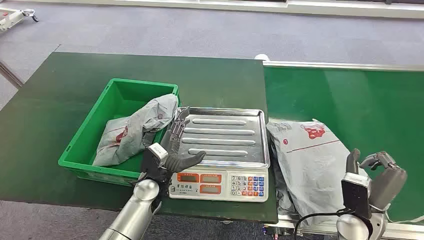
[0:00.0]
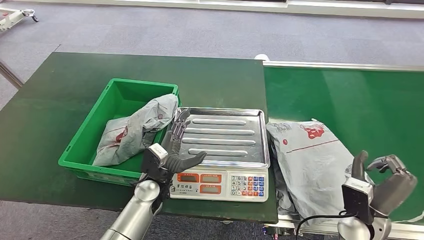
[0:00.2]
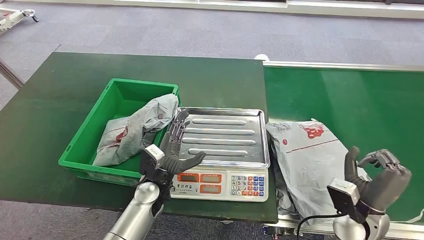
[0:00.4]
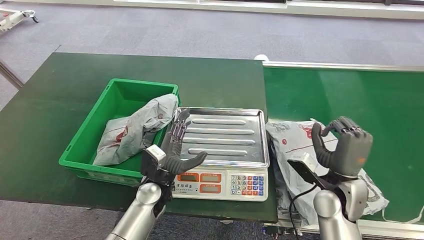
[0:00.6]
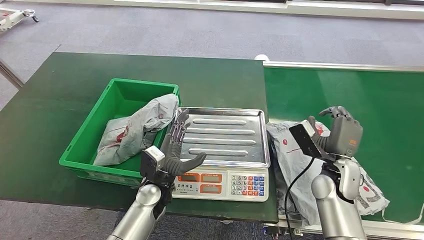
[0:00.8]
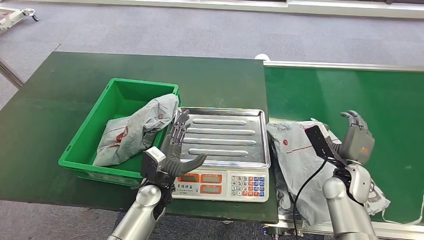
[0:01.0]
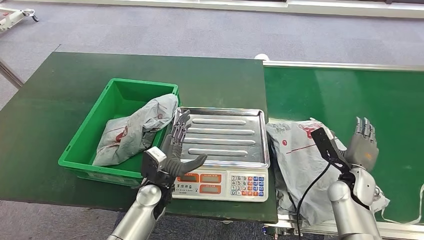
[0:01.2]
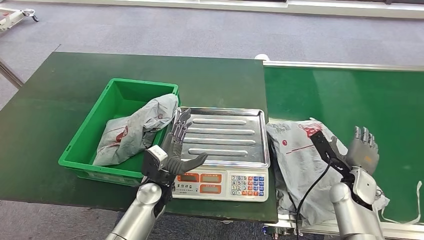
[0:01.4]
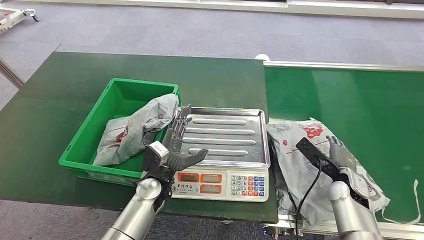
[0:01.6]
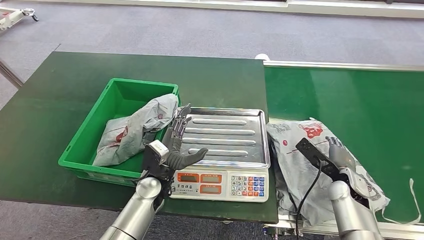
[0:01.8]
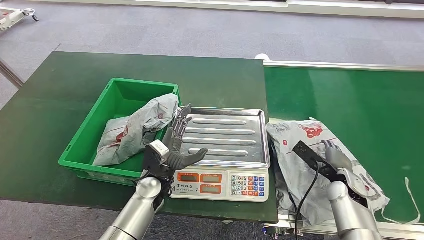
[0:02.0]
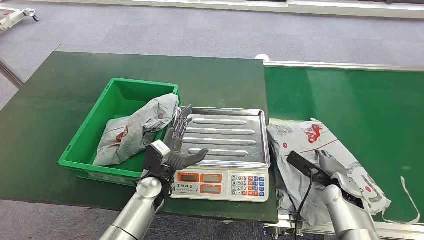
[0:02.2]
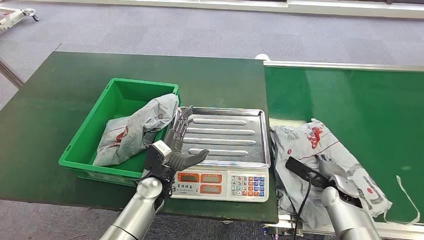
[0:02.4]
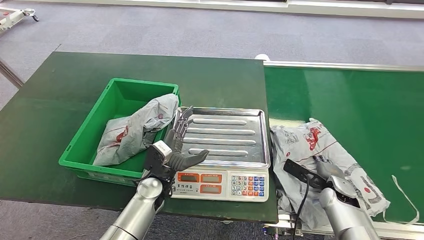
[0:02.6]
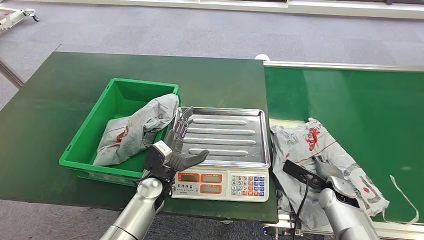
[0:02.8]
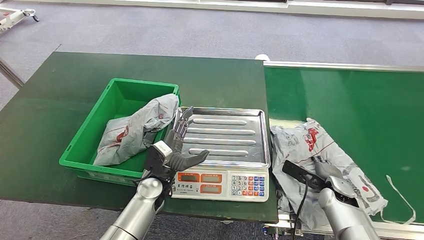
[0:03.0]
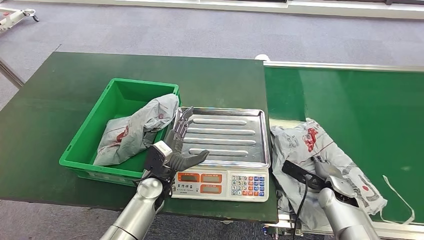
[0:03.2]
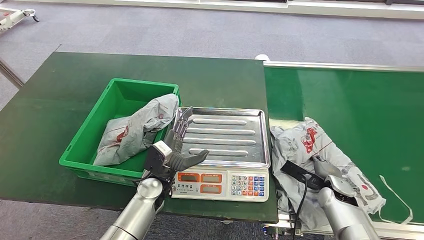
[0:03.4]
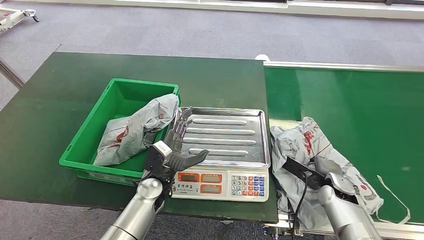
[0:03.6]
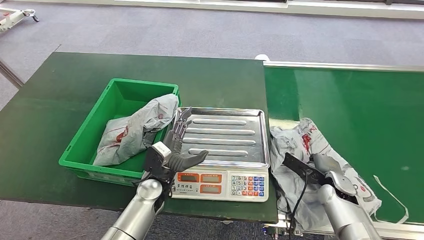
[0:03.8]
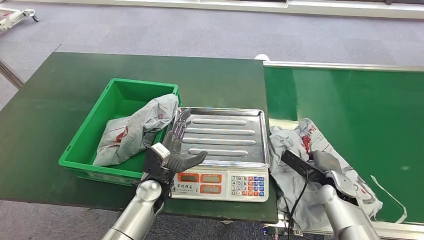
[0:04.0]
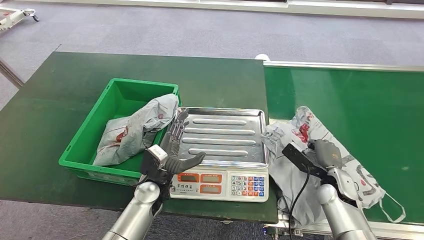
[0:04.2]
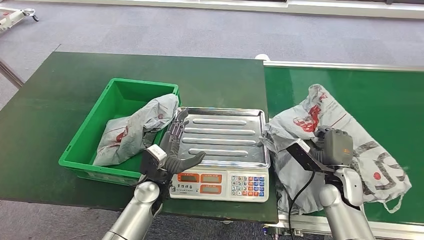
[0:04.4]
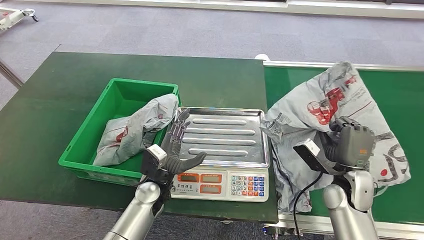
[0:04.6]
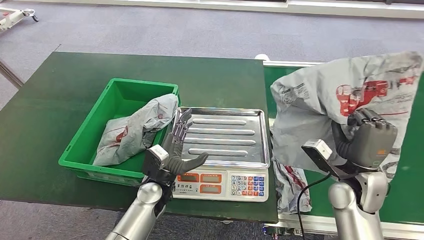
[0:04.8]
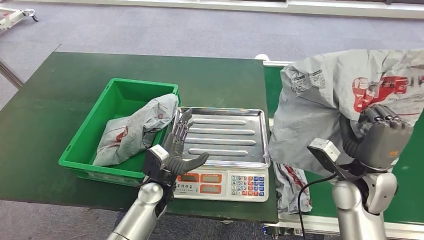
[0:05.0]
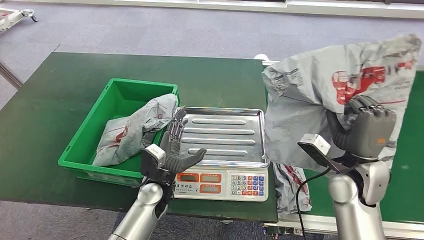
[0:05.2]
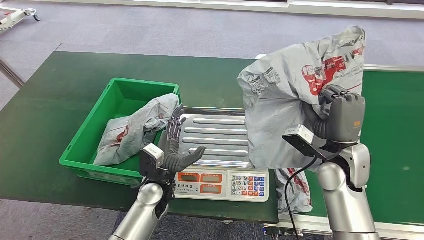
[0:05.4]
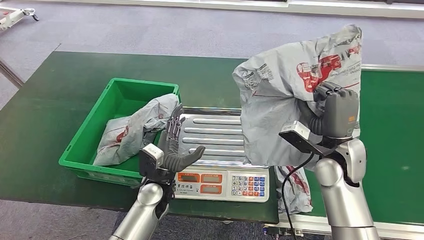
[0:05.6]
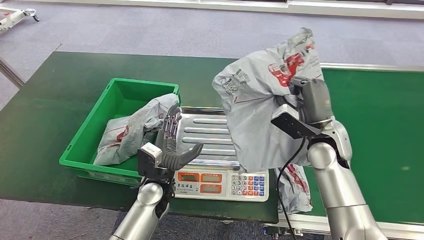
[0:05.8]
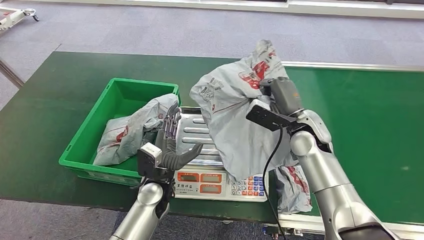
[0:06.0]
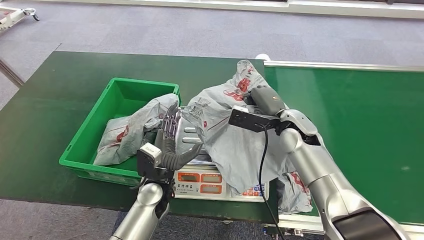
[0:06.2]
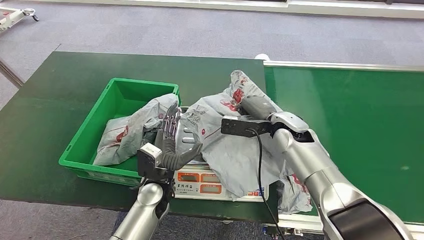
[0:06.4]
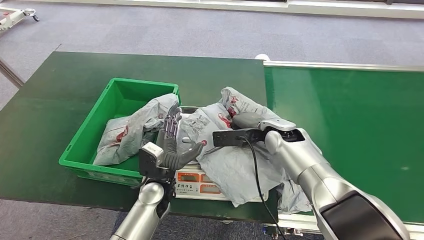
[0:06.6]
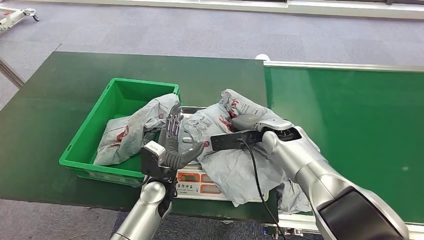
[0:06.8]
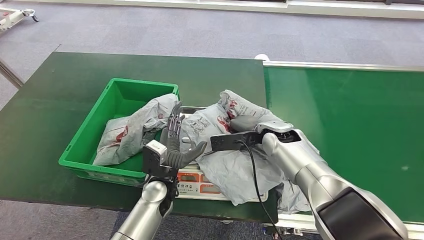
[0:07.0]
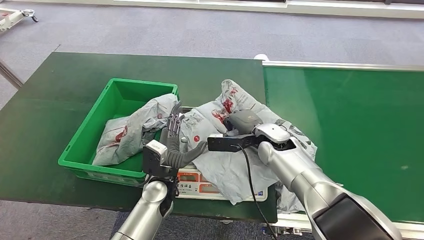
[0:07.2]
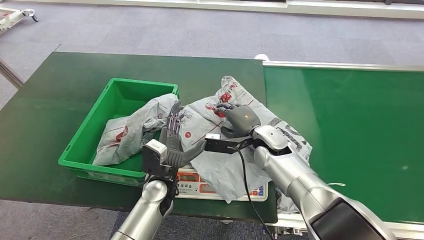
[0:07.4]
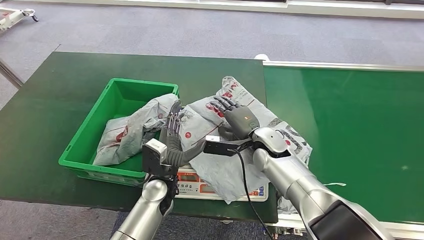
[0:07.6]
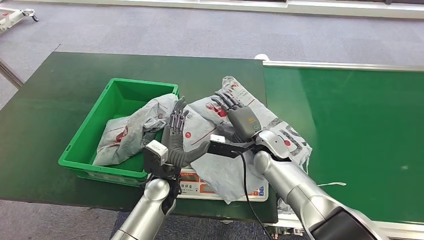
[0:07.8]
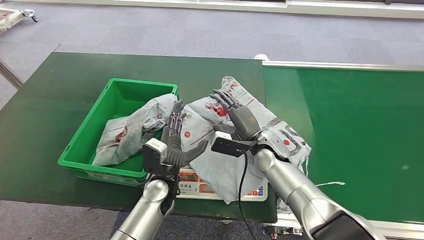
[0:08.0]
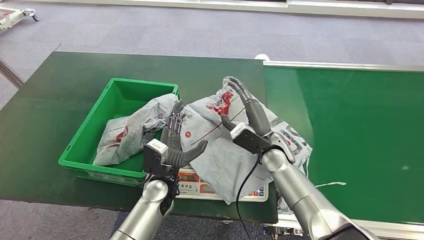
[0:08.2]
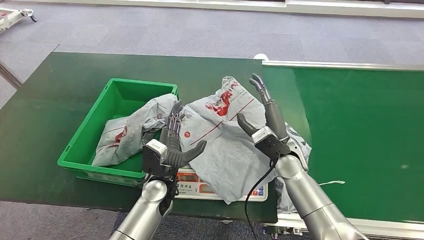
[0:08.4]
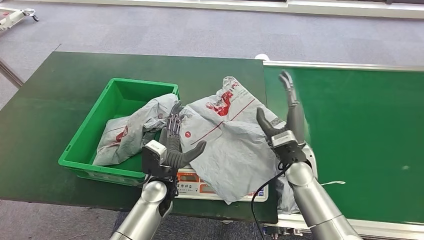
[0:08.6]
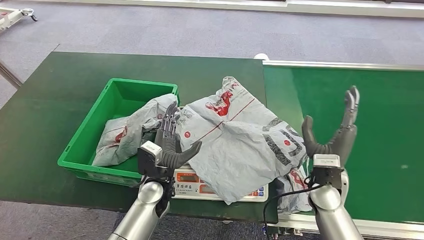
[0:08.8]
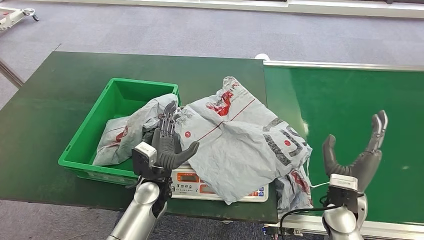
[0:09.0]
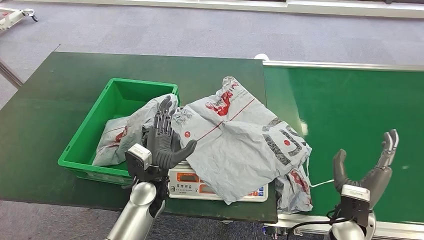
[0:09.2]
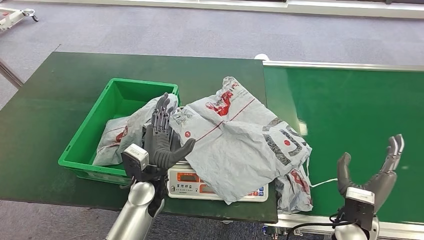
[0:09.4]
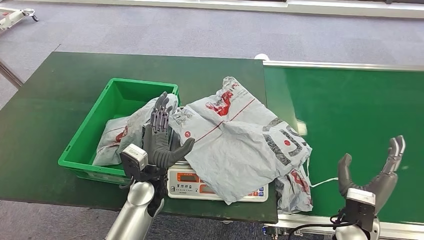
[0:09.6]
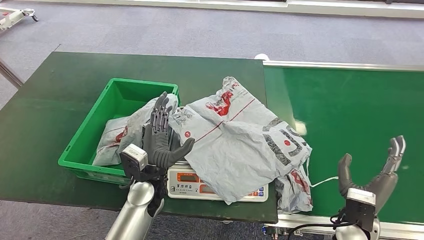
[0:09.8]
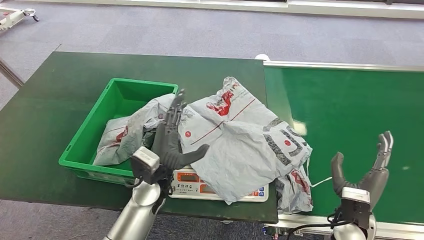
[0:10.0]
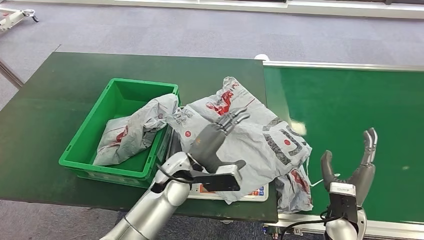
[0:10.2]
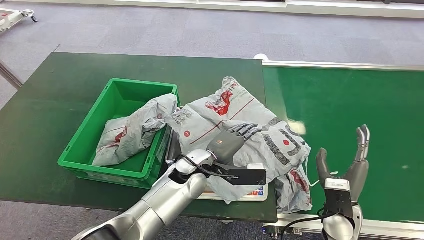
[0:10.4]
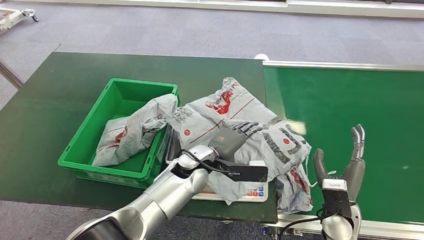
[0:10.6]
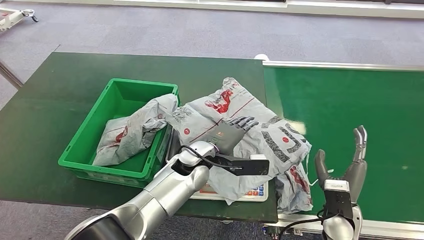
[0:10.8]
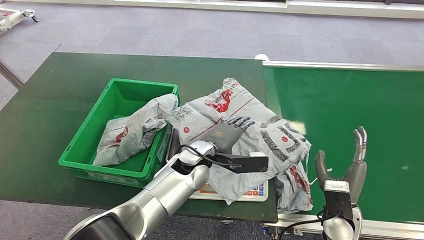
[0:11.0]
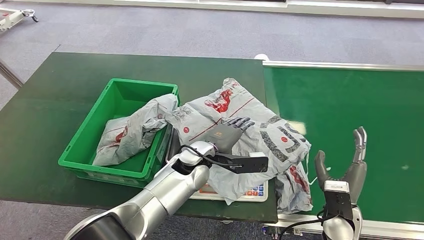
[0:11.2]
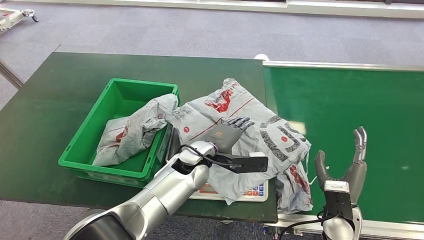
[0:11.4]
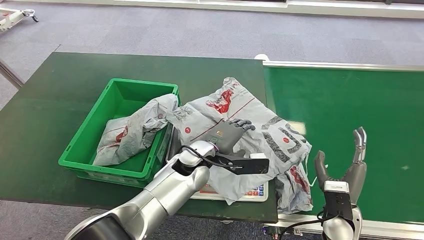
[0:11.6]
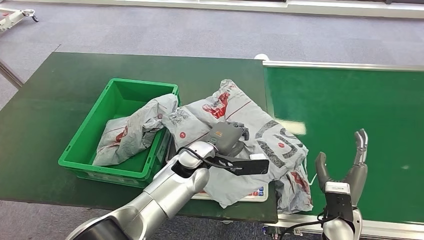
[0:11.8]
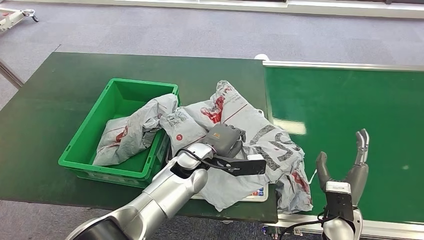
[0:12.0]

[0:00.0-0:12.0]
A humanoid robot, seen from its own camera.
Step, 0:00.0 to 0:05.2: Pick up the package from the conveyor belt.
Step, 0:05.4 to 0:08.2: Place the package onto the inbound machine.
0:03.0 to 0:04.4: The right hand shifts roughly 5 cm upward.
0:07.6 to 0:09.0: The right hand heads to the right and backward, covering roughly 20 cm.
0:09.0 to 0:10.4: The left hand travels to the right by some 10 cm.
0:10.4 to 0:12.0: The hands make only small movements.

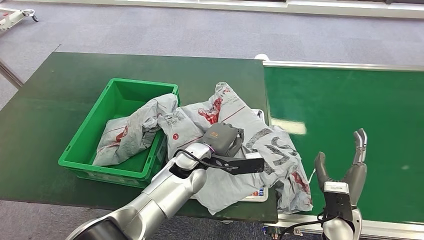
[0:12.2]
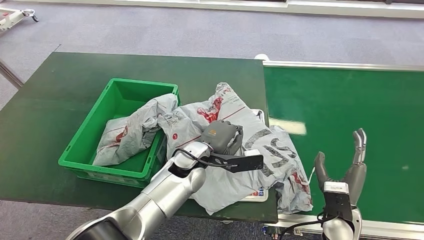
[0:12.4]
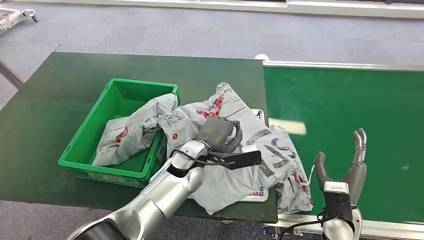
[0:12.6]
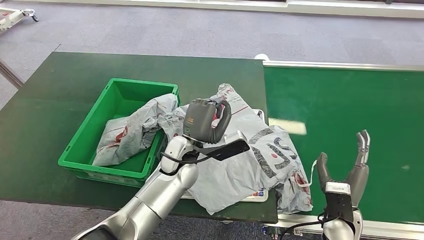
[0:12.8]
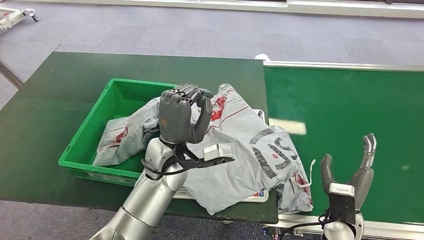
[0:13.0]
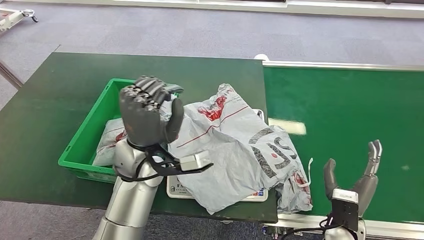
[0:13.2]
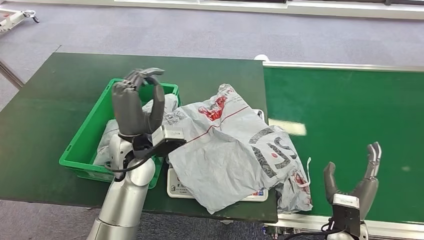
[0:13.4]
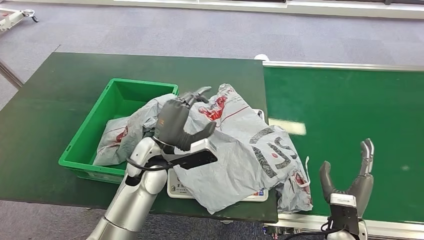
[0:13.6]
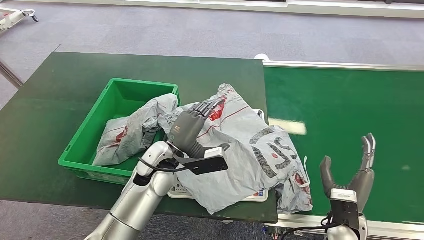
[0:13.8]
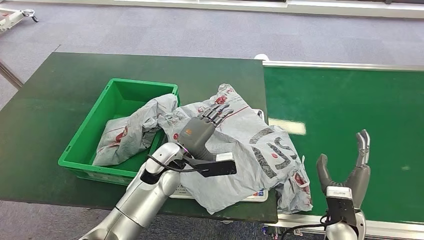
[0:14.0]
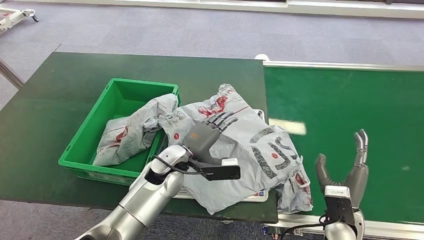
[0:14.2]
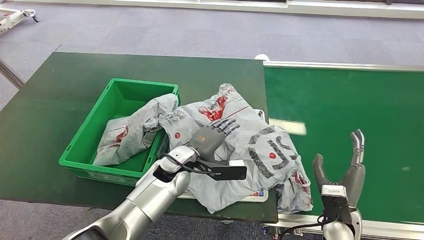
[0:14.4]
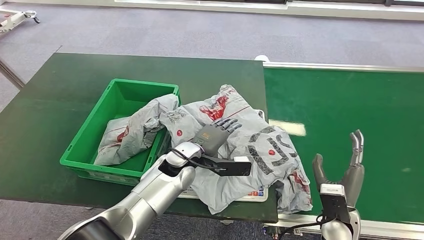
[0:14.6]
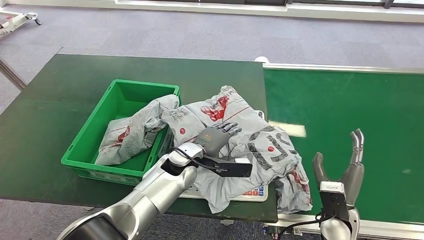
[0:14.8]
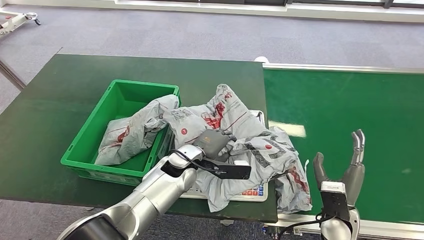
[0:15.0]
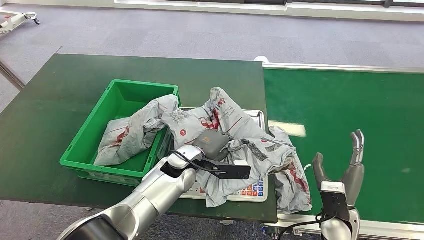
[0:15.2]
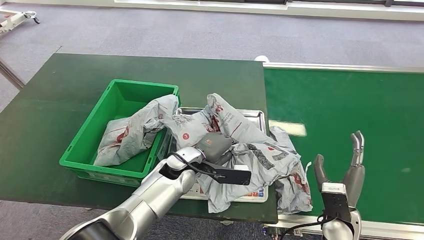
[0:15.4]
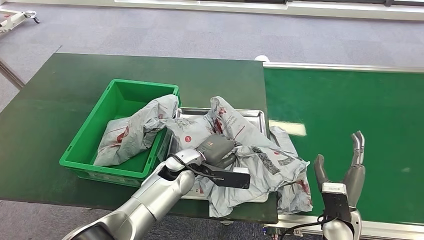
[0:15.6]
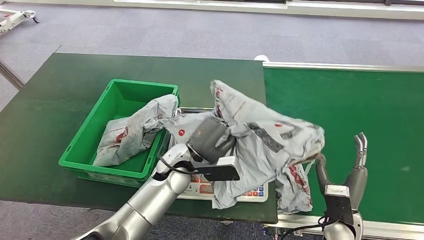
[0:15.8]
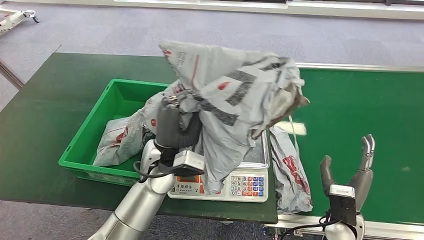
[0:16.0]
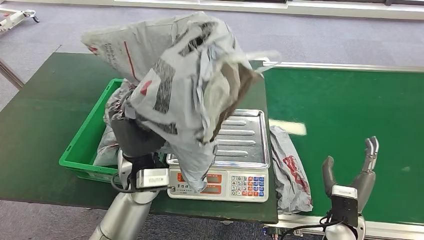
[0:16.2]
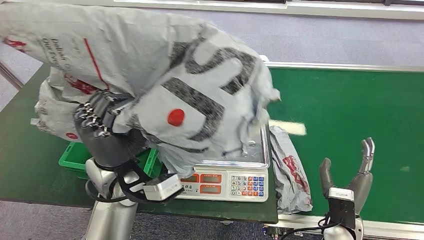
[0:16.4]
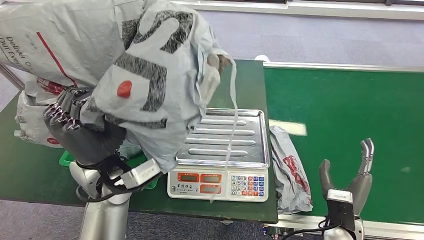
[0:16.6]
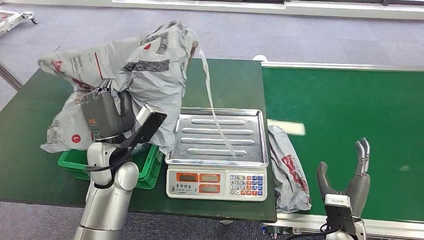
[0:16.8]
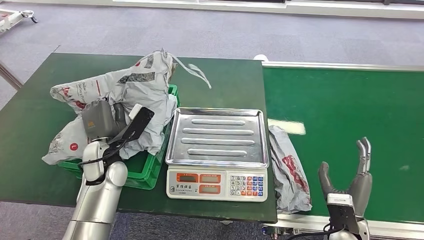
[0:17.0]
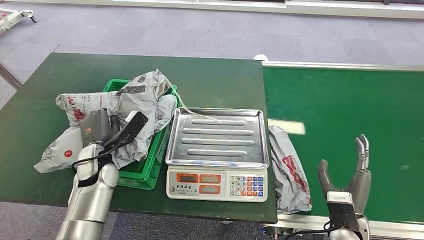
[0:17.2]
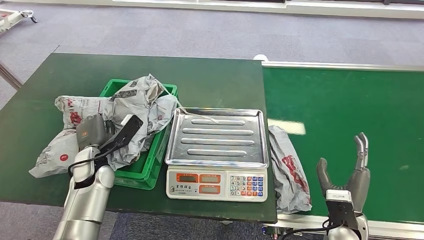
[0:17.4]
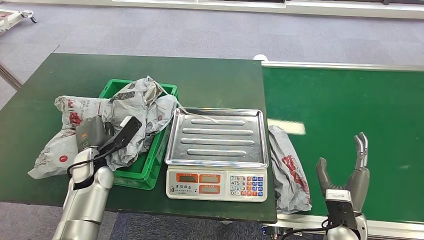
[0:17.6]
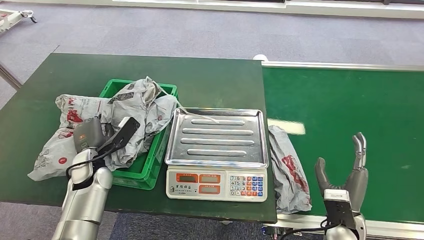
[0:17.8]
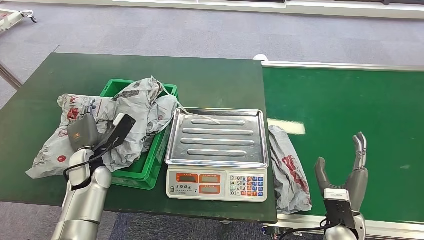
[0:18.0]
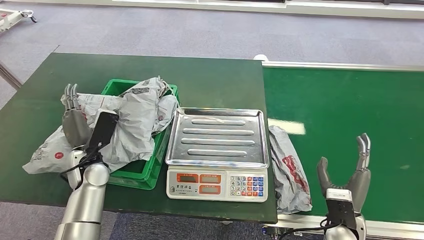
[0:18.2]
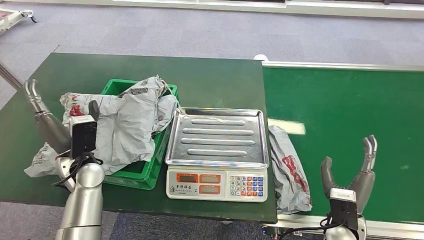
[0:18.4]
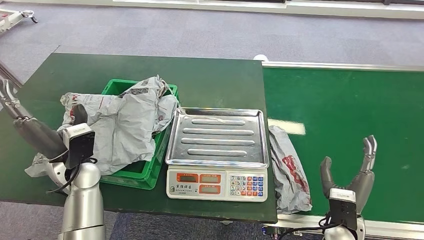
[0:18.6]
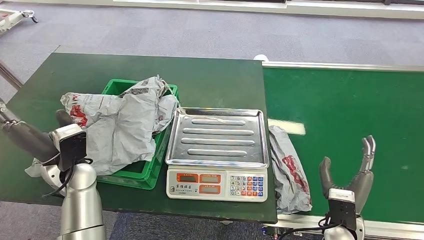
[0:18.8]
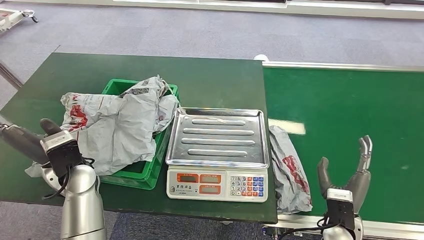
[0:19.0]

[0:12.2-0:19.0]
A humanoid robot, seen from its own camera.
Step, 0:12.2 to 0:16.8: Pick up the package from the inbound machine.
0:12.2 to 0:13.6: The left hand moves to the left and upward, approximately 10 cm.
0:17.6 to 0:19.0: The left hand shifts some 10 cm upward.
